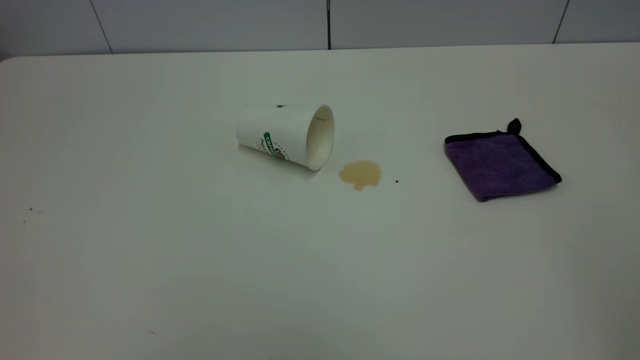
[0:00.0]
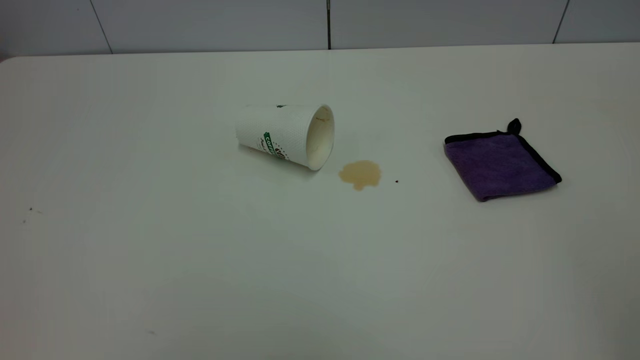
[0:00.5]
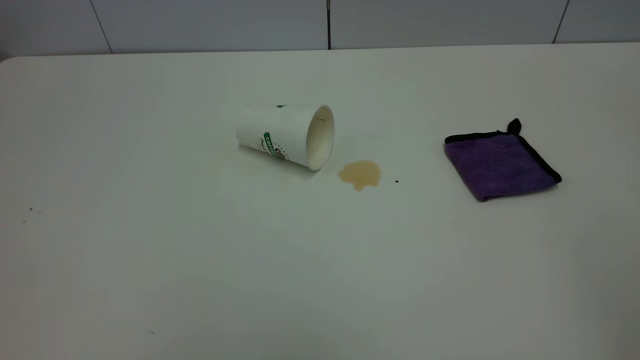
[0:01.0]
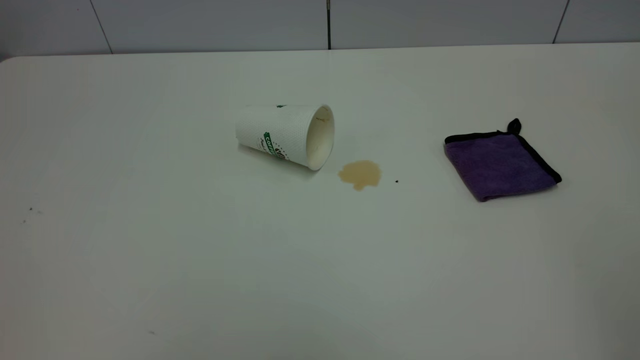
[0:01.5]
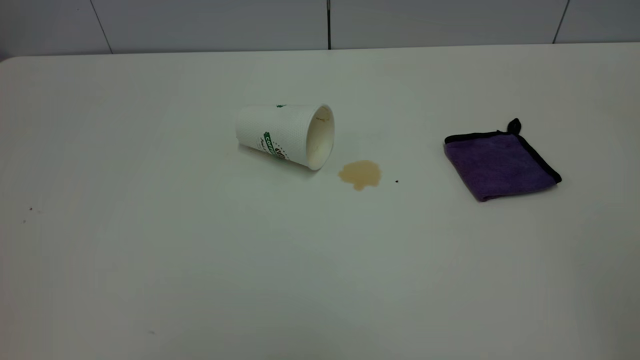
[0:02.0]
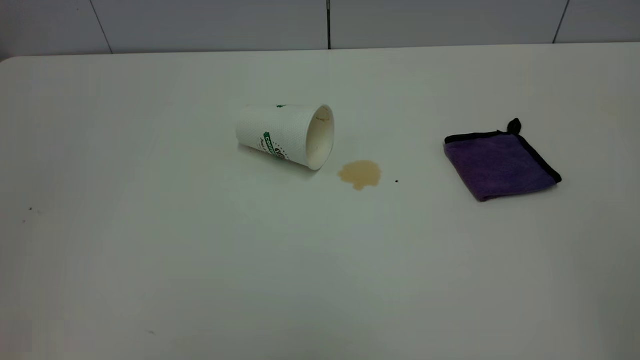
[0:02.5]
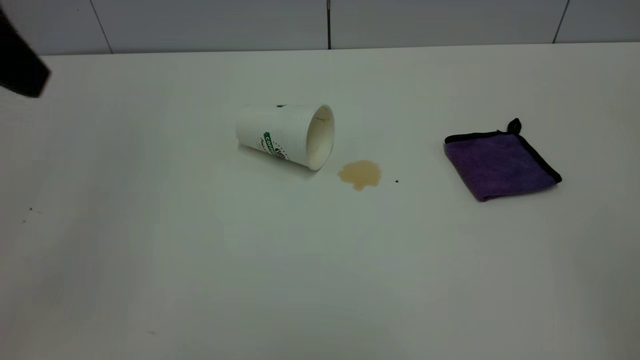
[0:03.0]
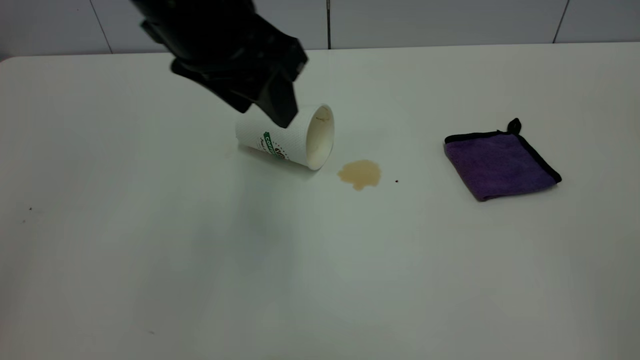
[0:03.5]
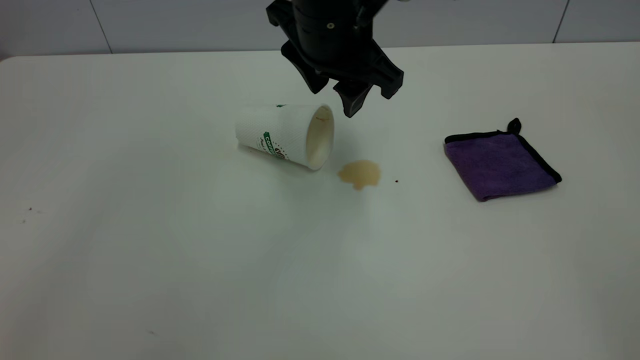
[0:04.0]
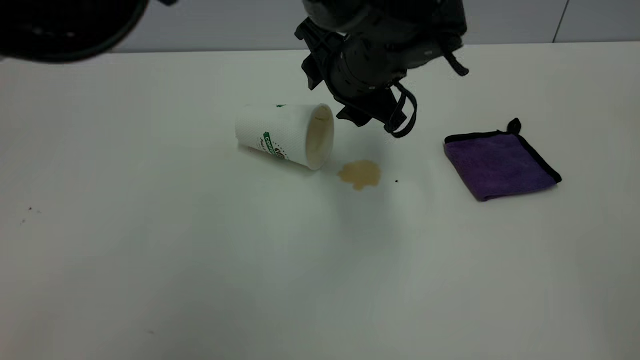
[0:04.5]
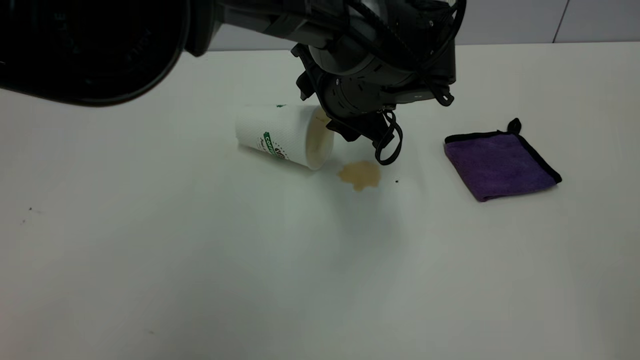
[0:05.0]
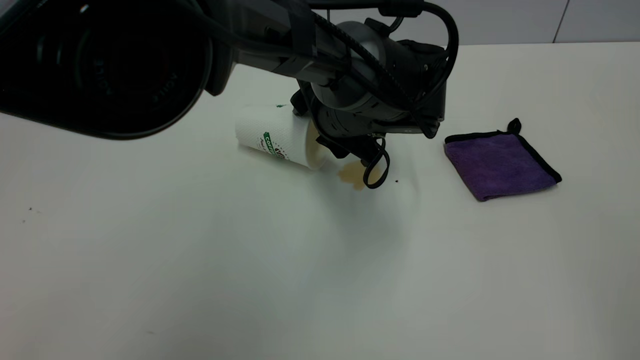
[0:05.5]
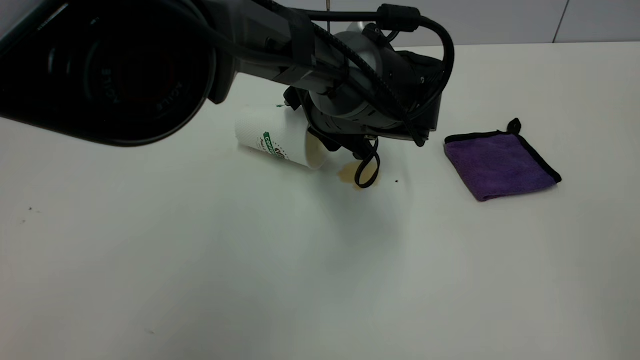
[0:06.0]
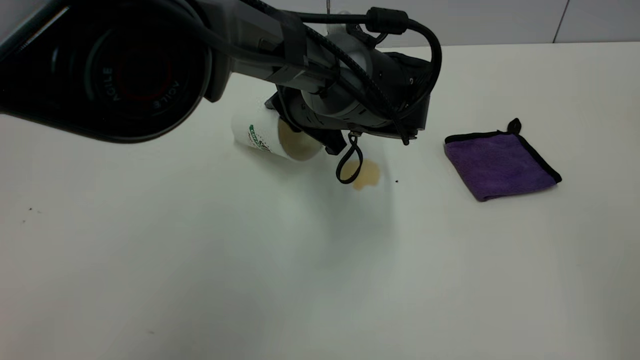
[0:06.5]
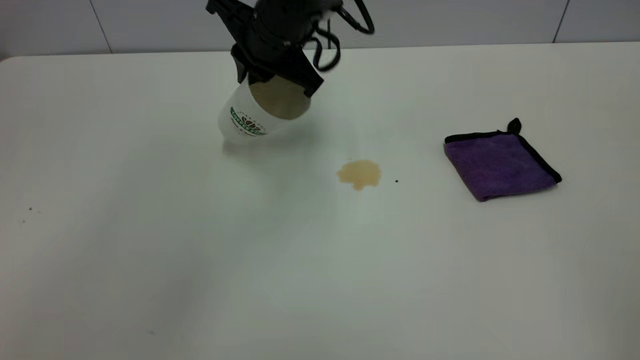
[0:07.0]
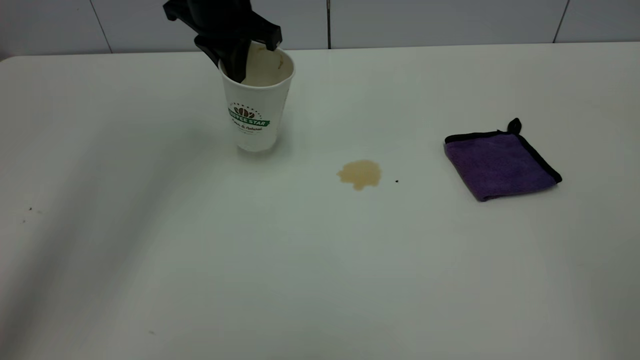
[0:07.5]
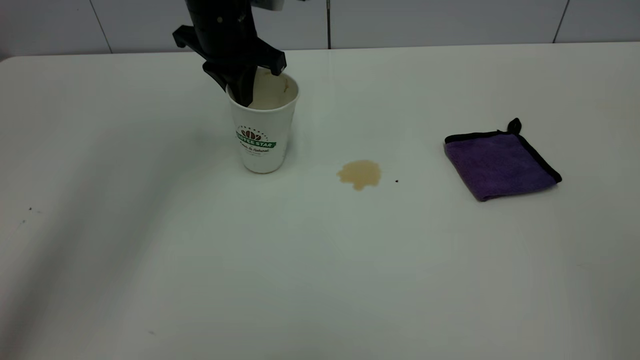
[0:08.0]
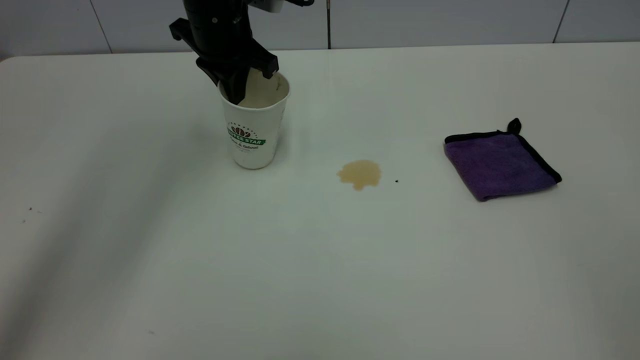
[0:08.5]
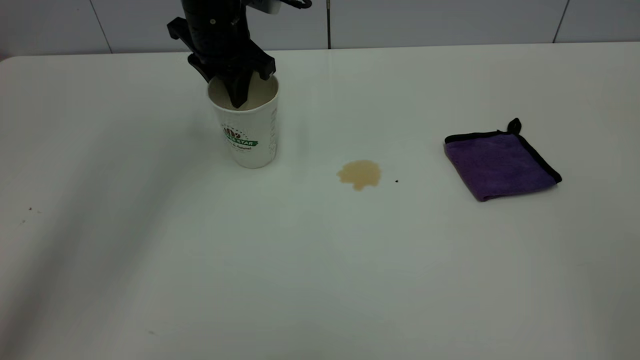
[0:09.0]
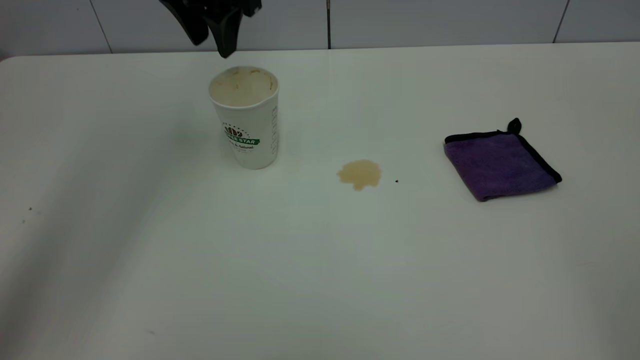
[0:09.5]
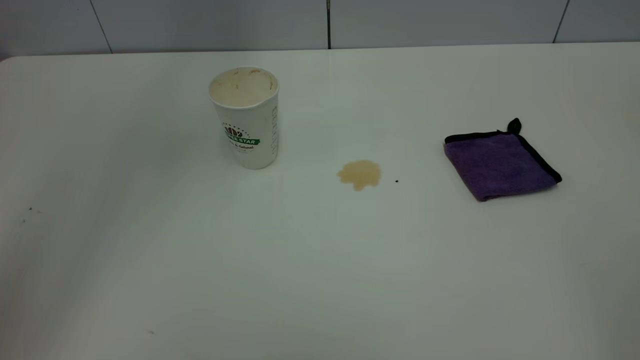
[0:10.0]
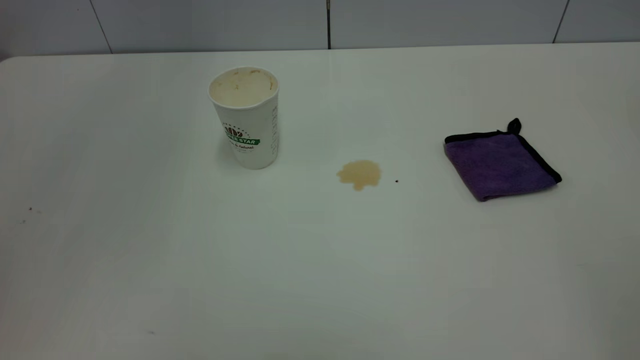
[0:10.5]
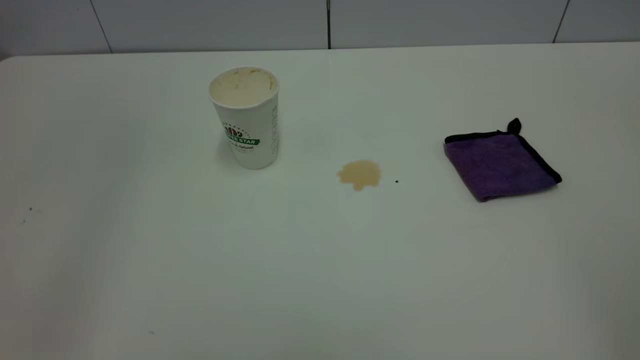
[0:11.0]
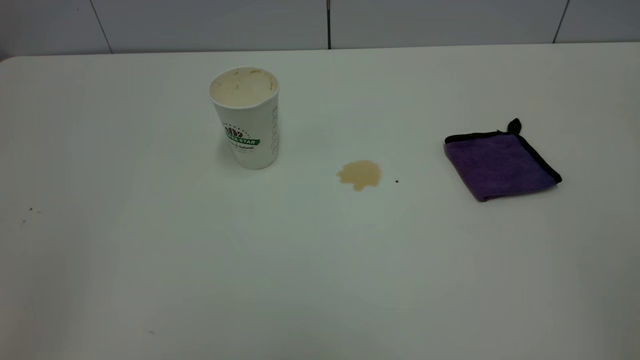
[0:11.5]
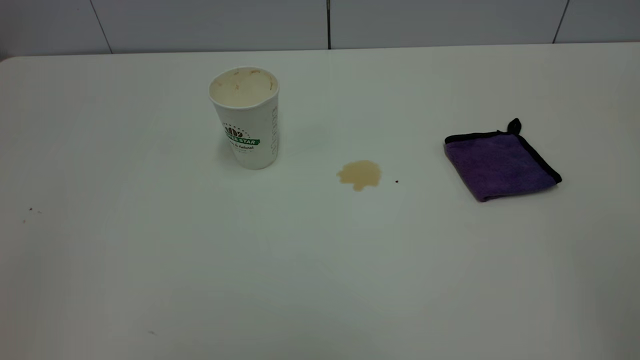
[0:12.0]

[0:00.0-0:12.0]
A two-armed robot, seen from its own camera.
Task of the whole recording: the left gripper pick up the fallen cup and place it upright, the right gripper grasp the purple rag and wipe the tea stain on the table, the right gripper put the purple rag back in its original position.
Step, 0:00.0 to 0:09.0: Stand the paper cup upright.
0:02.0 to 0:04.0: The left gripper is displaced forward and to the right by roughly 50 cm.
0:04.0 to 0:06.0: The left gripper shifts some 15 cm downward.
0:06.0 to 0:08.0: The left gripper goes some 20 cm to the left, forward and upward, and closes up.
0:08.0 to 0:10.0: The left gripper moves upward, some 25 cm, and opens.

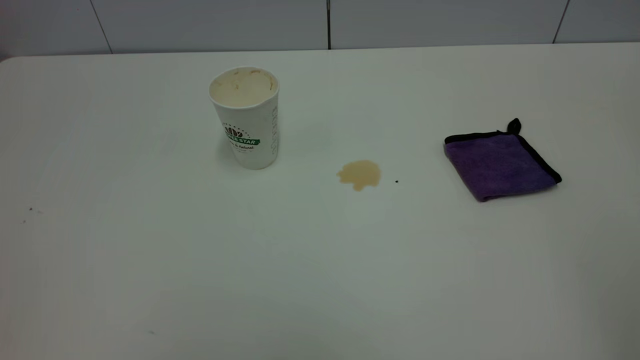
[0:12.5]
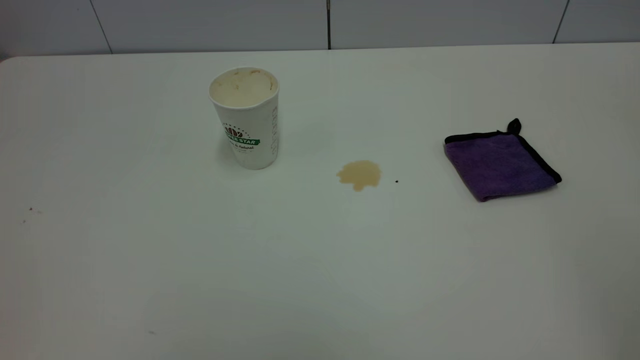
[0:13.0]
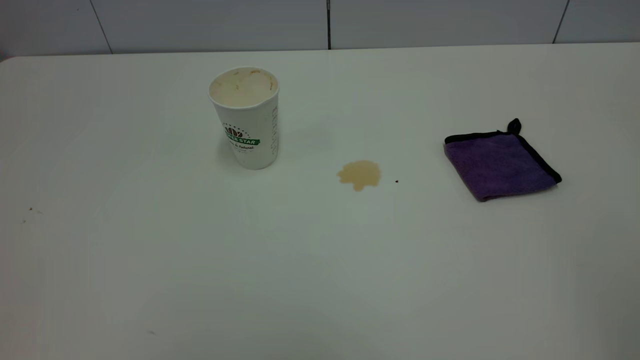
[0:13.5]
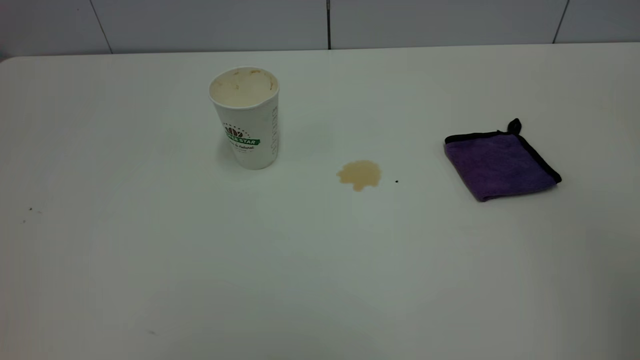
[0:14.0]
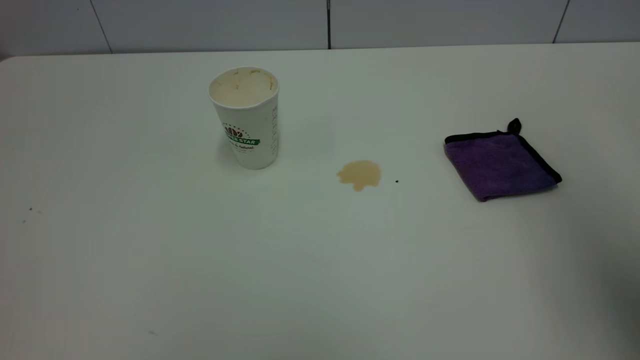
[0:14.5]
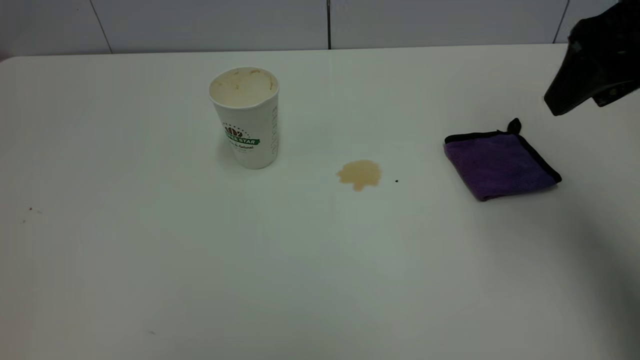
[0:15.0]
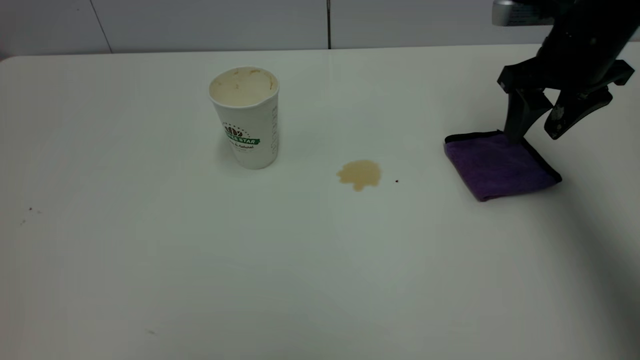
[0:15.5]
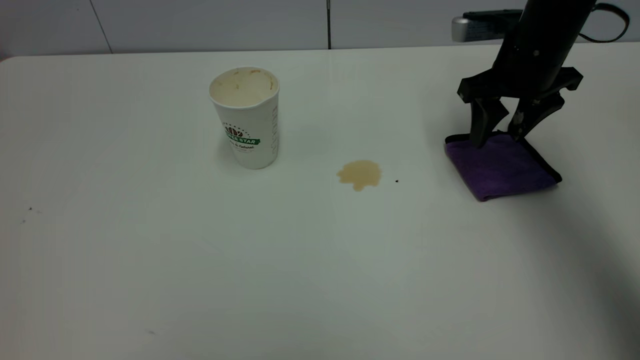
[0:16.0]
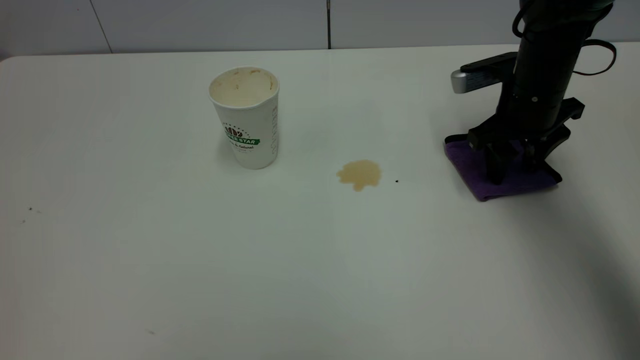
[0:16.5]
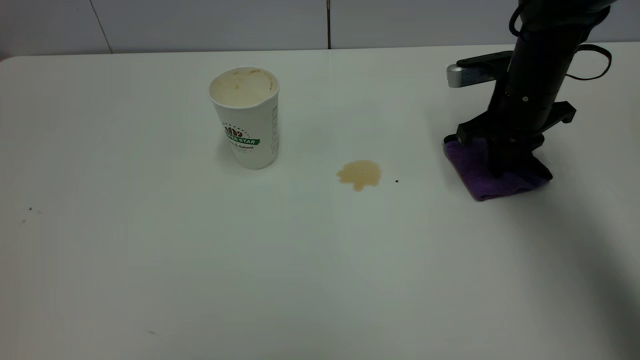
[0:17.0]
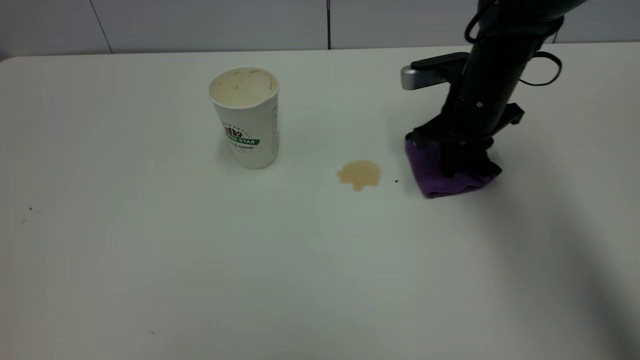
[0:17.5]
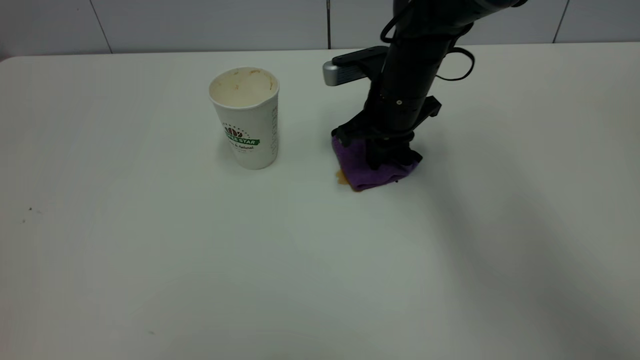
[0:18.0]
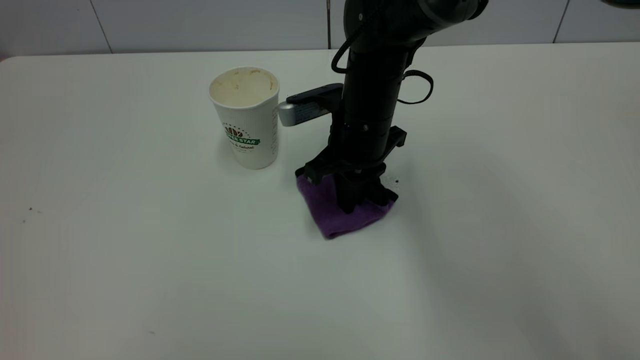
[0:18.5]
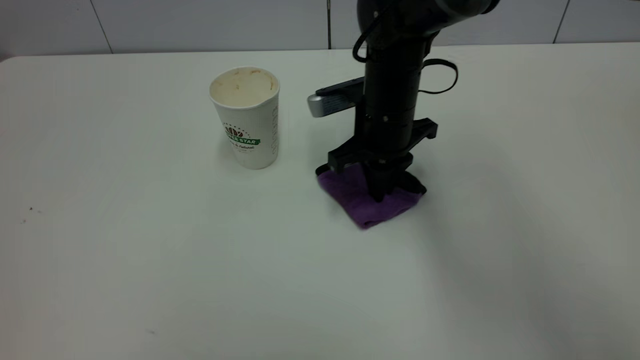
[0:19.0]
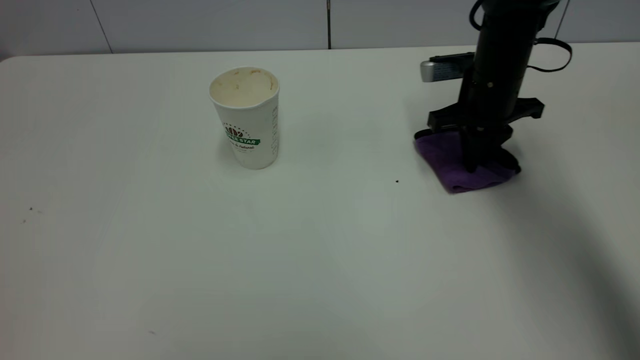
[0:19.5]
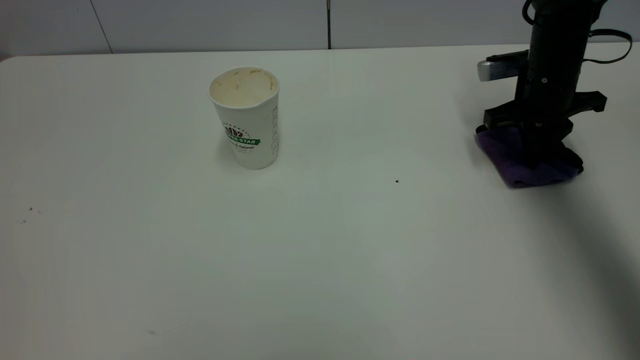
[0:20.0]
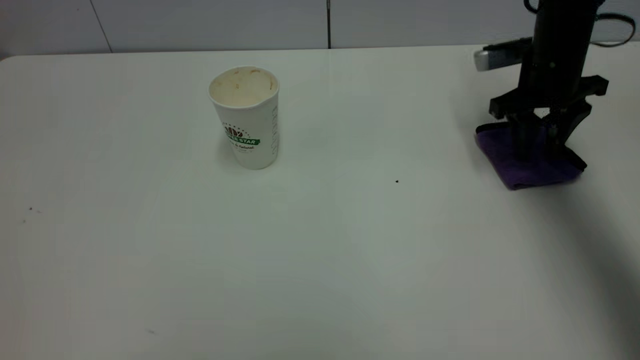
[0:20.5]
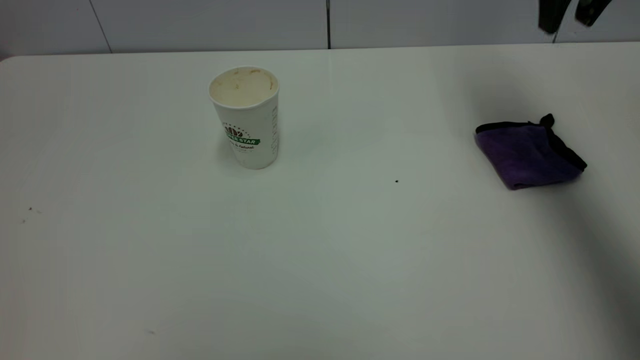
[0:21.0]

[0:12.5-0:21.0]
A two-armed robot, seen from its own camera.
Task of the whole recording: the left gripper pick up the fallen cup and place it upright, the right gripper grasp the purple rag and wipe the tea stain on the table, the right gripper put the purple rag back in its original position.
Step, 0:12.5 to 0:20.5: Wipe the stains off the table with a rag.
0:12.5 to 0:14.5: The right gripper travels forward by some 20 cm.
0:14.5 to 0:16.5: The right gripper heads forward and downward, covering roughly 30 cm.
0:16.5 to 0:19.0: The right gripper travels to the left by about 15 cm, and closes.
0:19.0 to 0:21.0: The right gripper shifts some 30 cm upward and to the right, and opens up.
